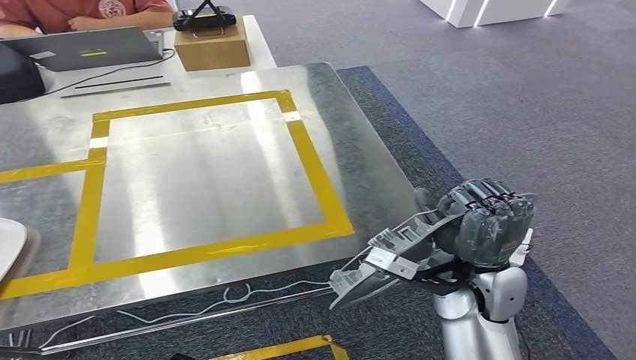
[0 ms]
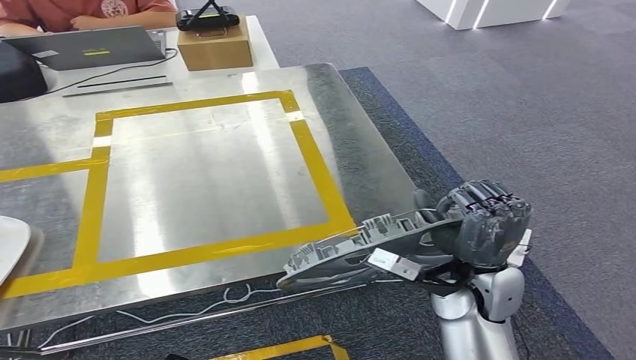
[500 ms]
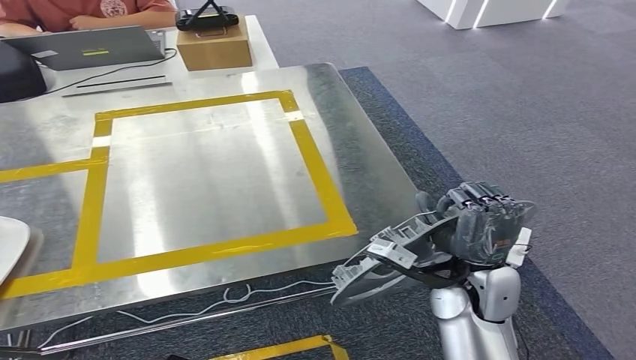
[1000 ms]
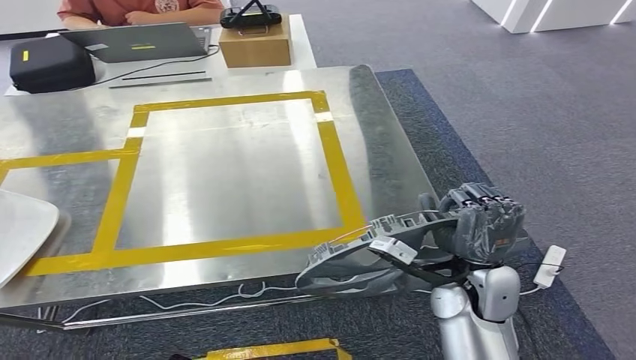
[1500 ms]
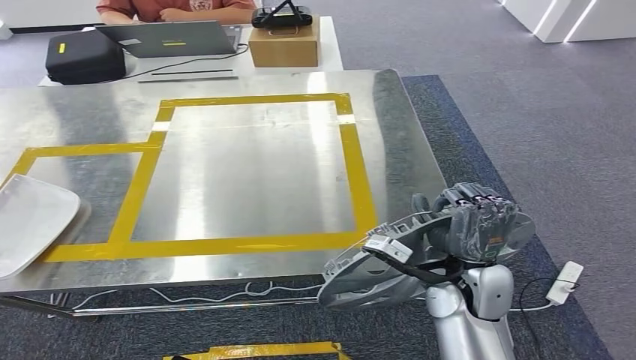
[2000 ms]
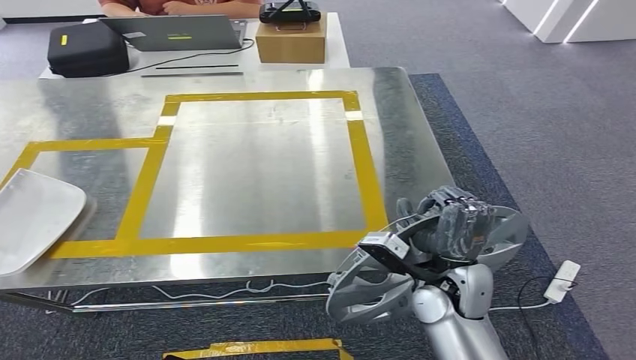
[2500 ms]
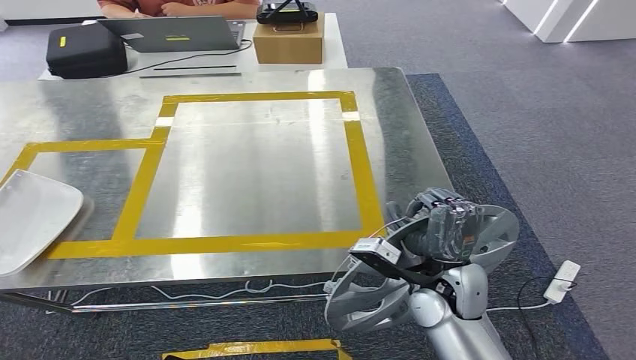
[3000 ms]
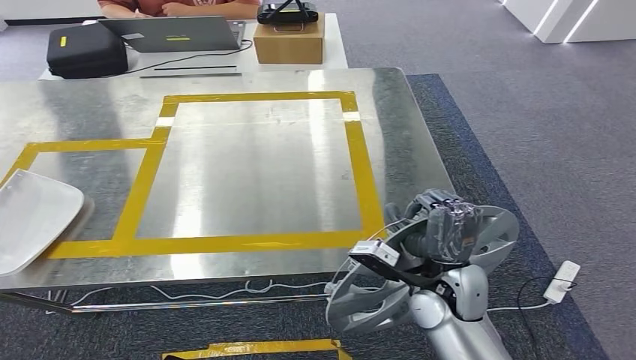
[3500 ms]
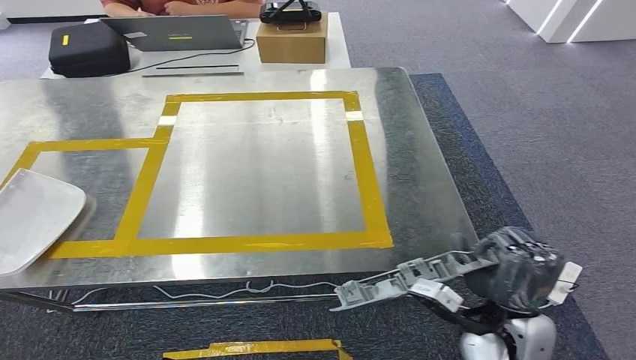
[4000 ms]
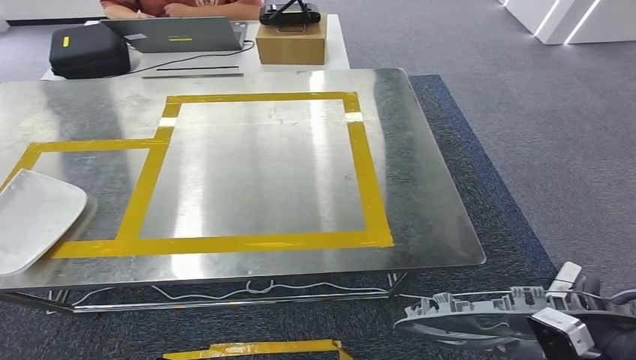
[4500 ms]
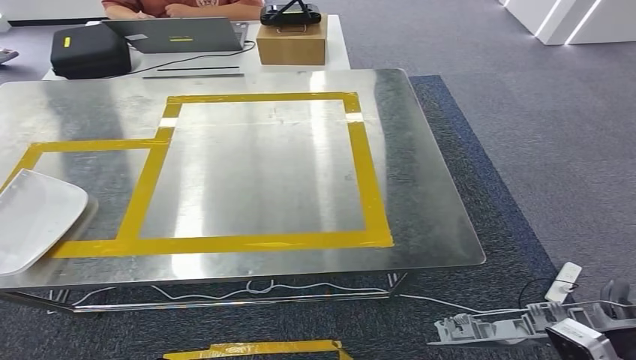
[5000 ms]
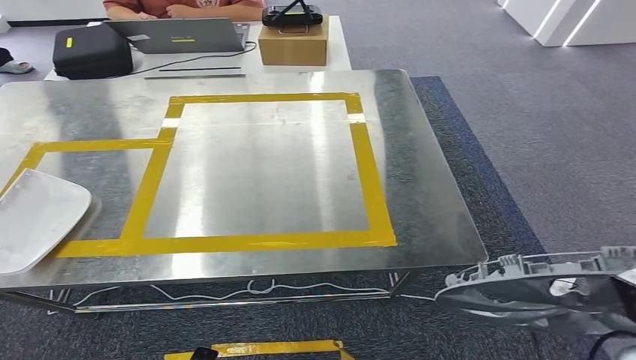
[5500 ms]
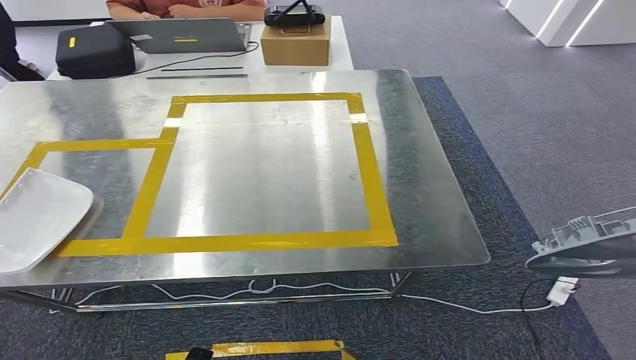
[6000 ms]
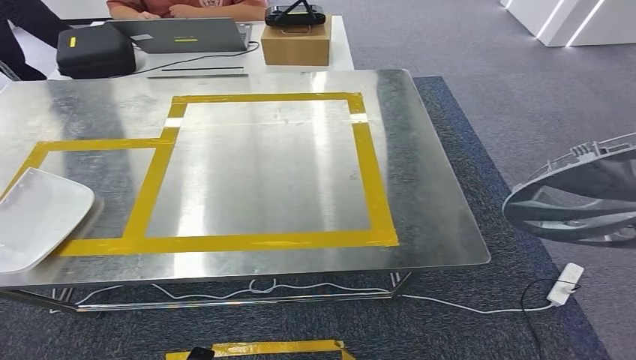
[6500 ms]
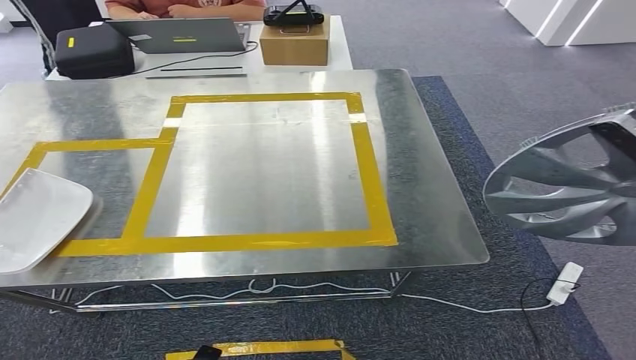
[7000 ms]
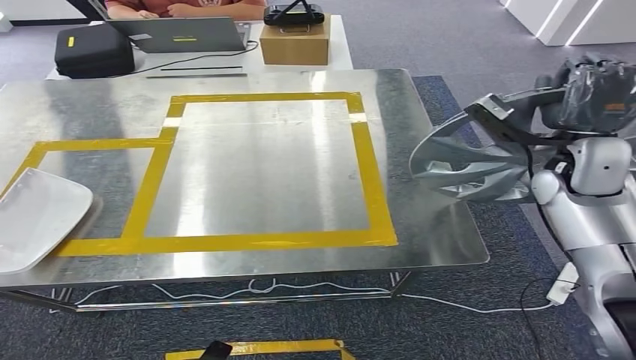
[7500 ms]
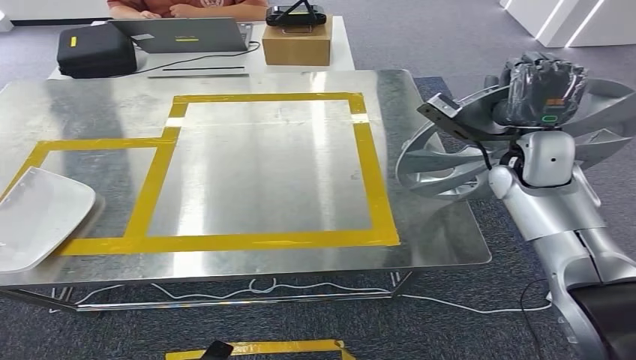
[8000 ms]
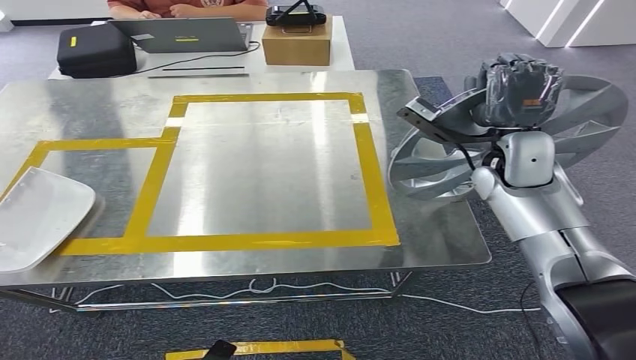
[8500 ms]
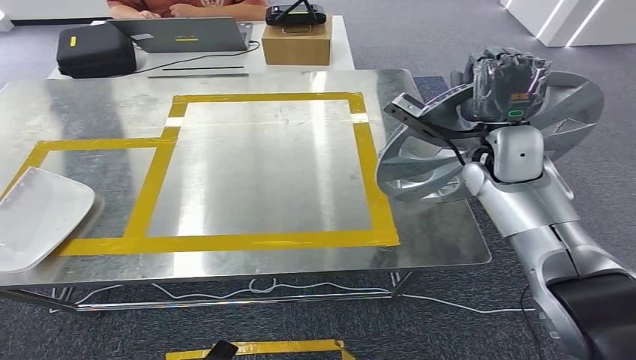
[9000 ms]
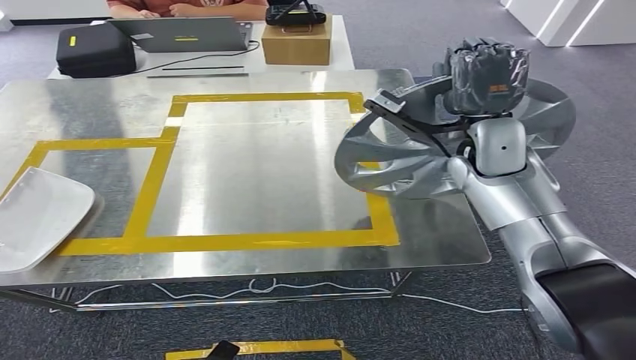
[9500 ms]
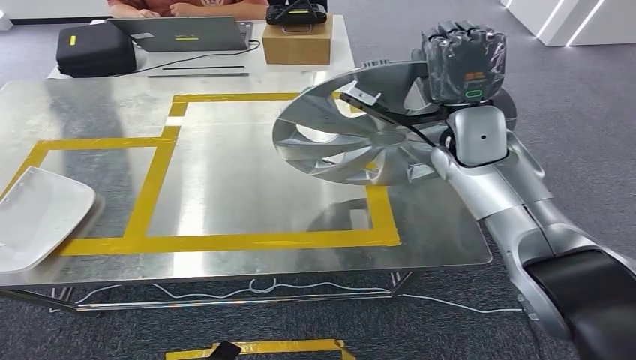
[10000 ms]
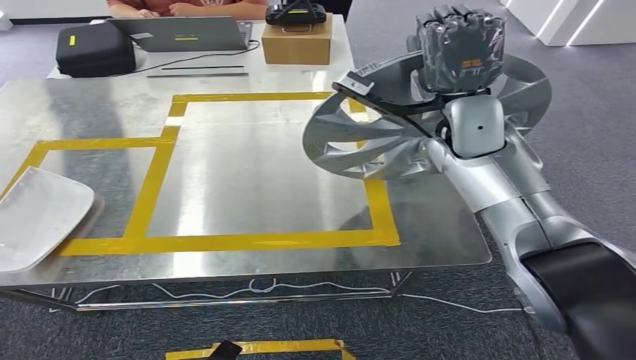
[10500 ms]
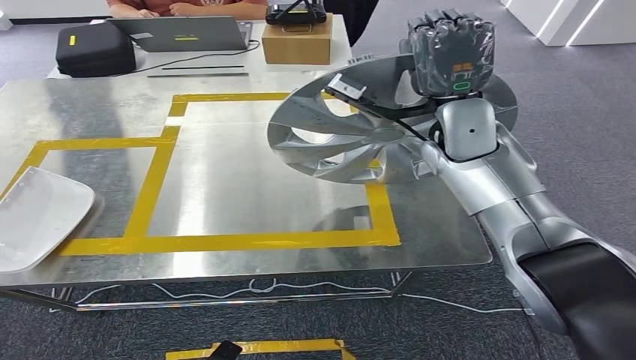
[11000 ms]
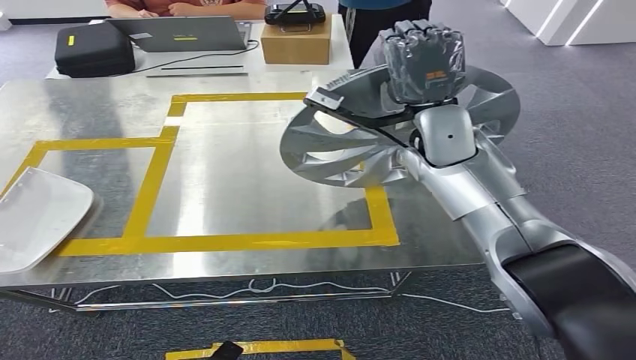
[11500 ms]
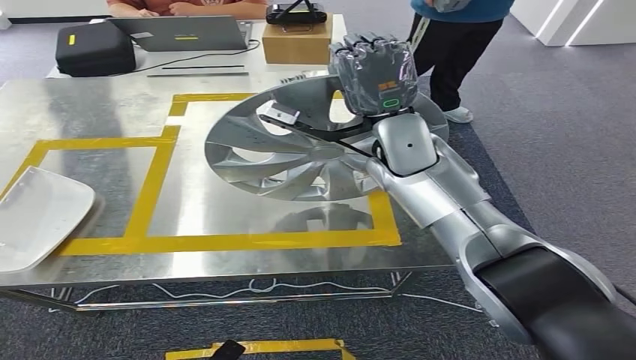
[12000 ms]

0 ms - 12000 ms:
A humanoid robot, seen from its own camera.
4000 ms - 6000 ms: The left hand goes roughly 5 cm to the right; the right hand travels to the right and upward by approximately 30 cm.
6000 ms - 8000 ms: The right hand shifts approximately 30 cm forward and to the left.

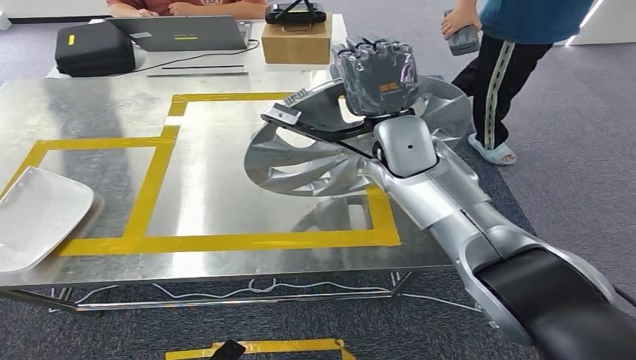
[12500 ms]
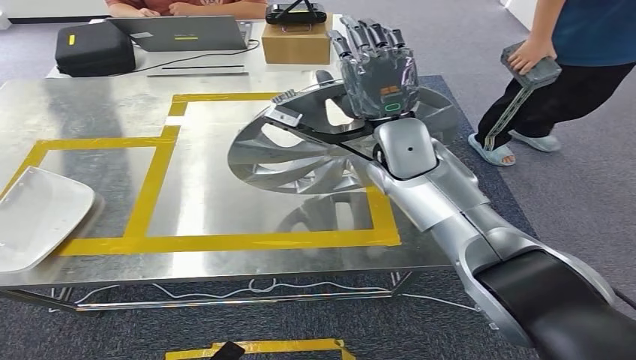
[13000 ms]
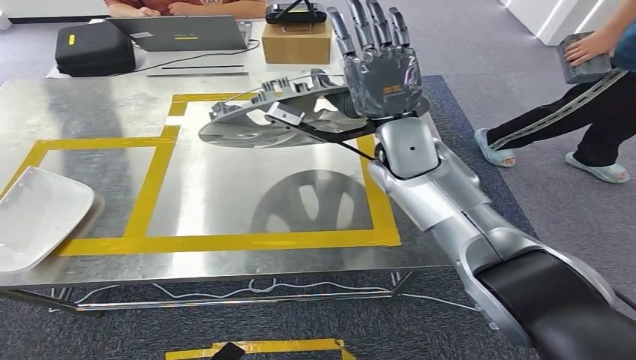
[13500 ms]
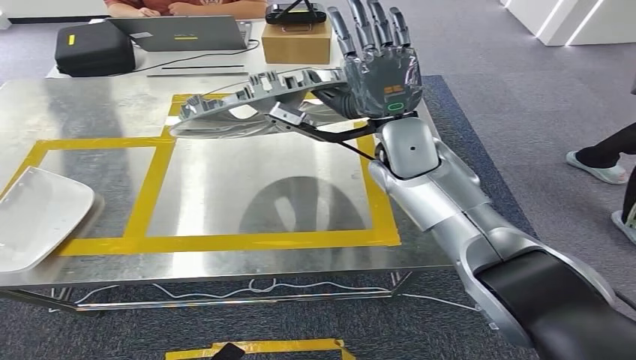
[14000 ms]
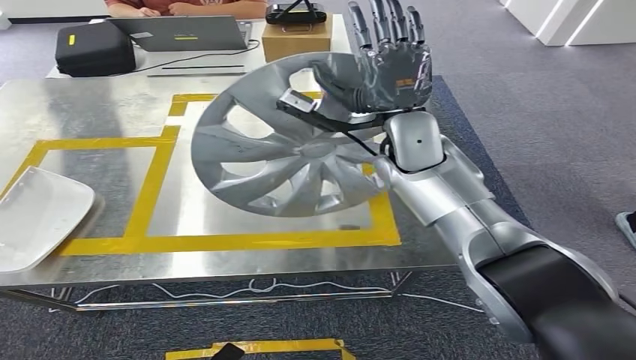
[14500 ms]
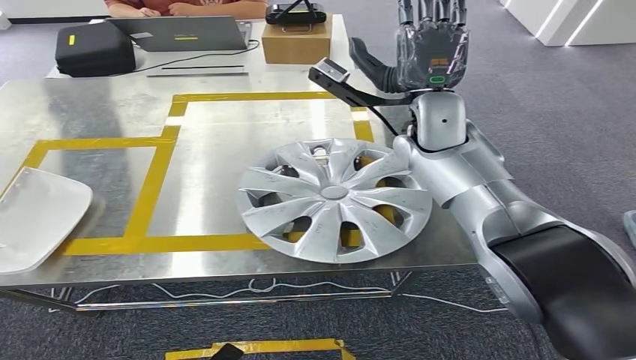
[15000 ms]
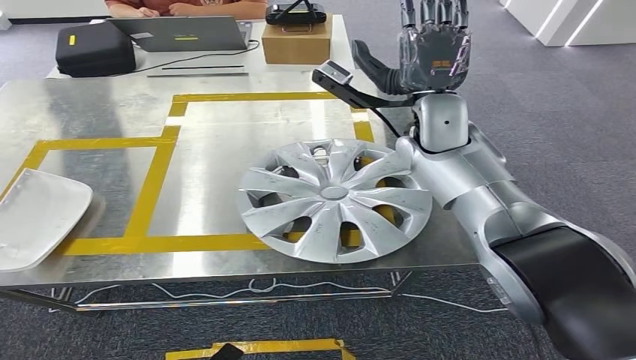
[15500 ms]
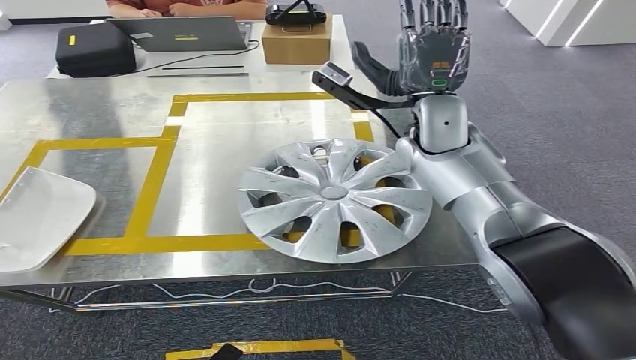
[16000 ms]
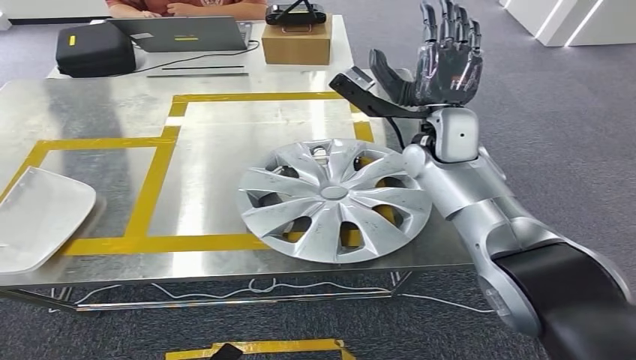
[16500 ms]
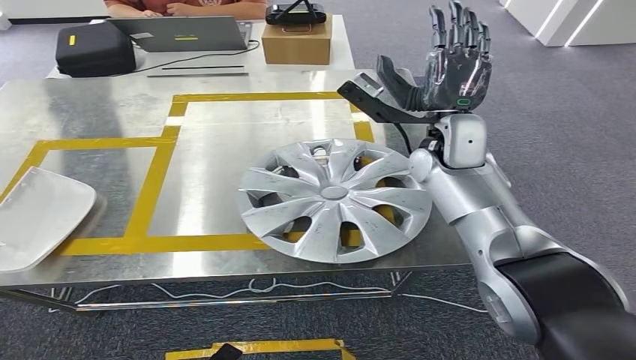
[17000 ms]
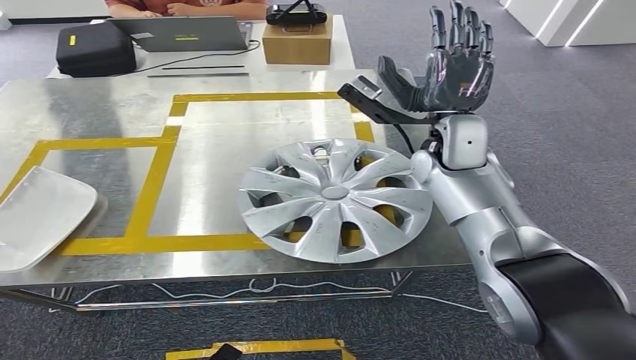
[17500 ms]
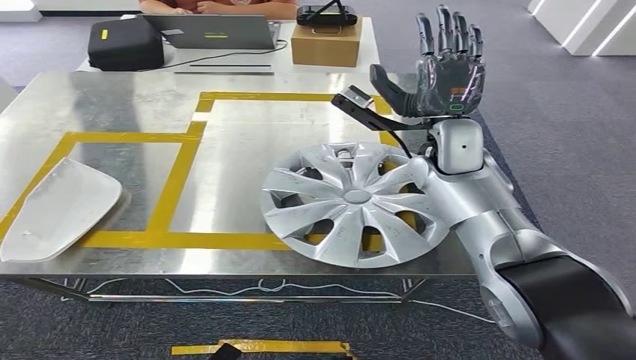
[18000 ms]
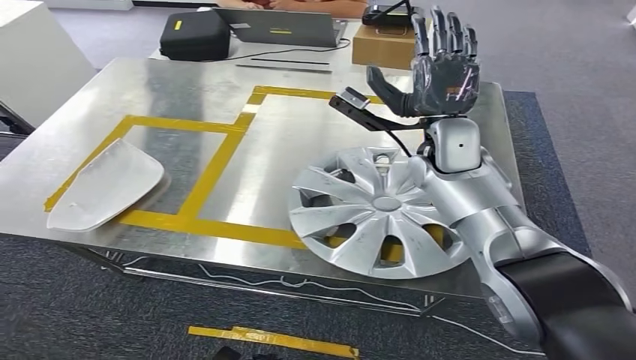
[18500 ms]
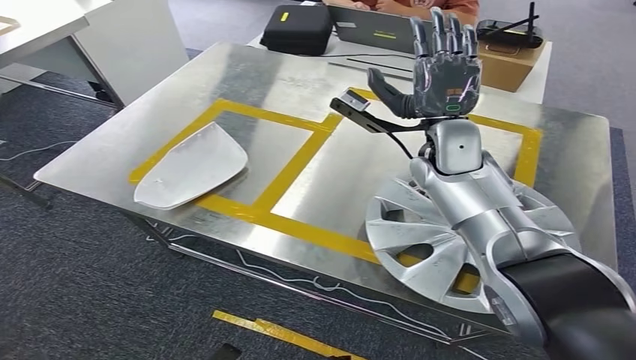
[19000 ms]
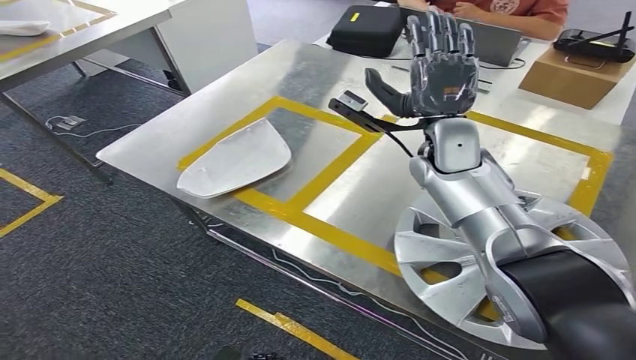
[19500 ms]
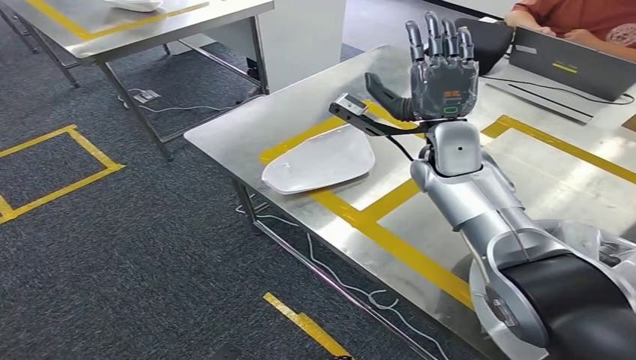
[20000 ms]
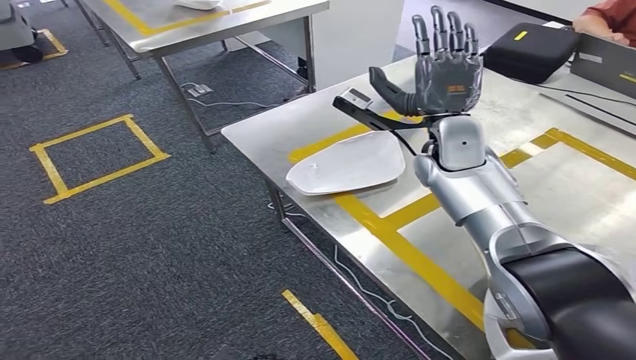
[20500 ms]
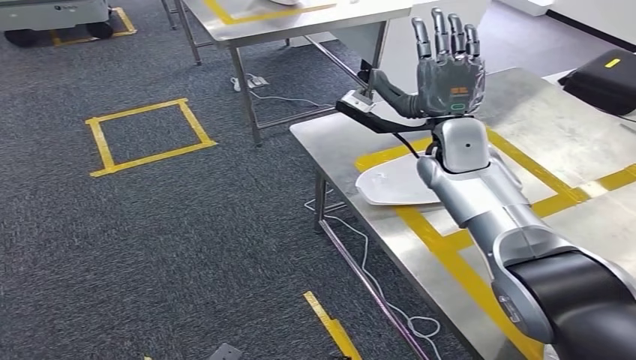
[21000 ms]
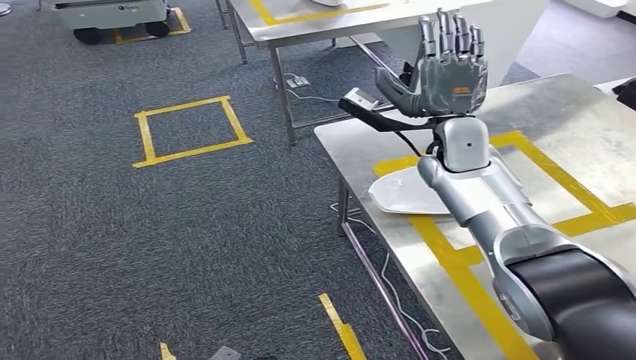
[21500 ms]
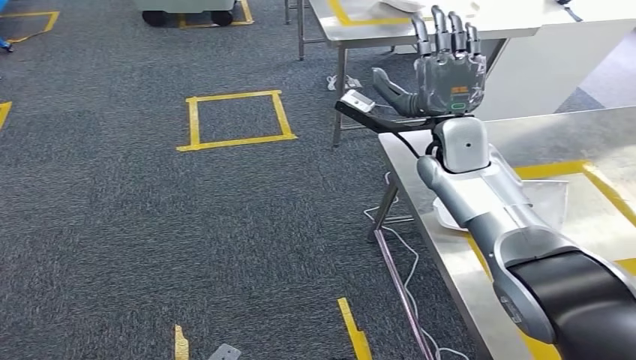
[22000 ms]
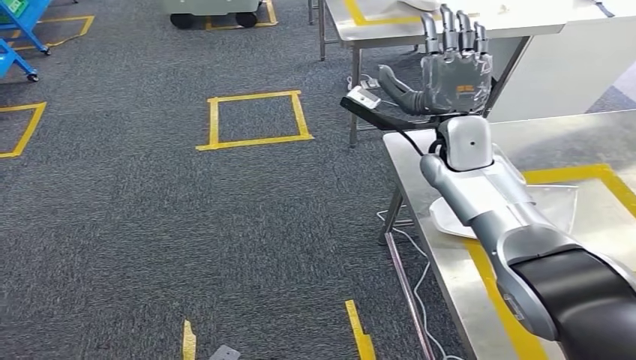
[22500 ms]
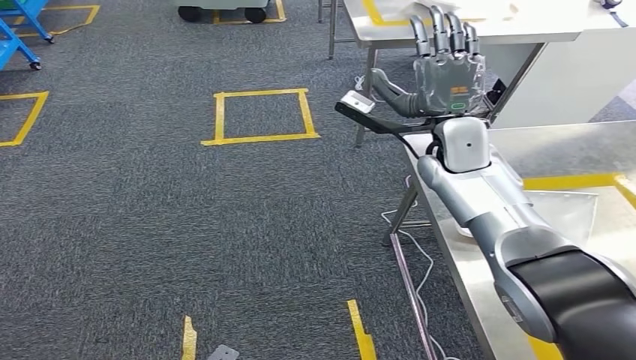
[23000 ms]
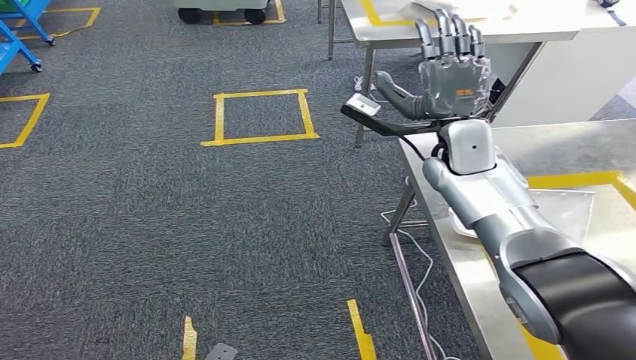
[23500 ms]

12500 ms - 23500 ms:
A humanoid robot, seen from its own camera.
Step, 12500 ms - 17500 ms: Insert the small component into the corresponding slot on the workbench.
